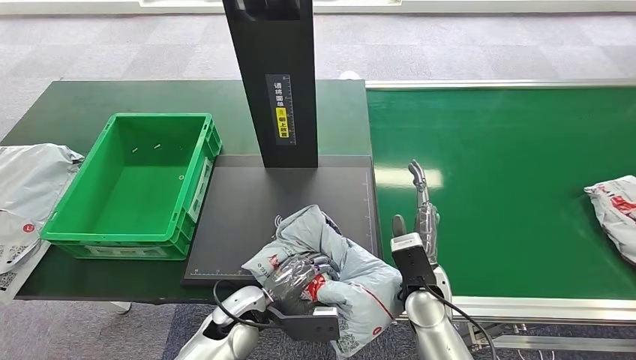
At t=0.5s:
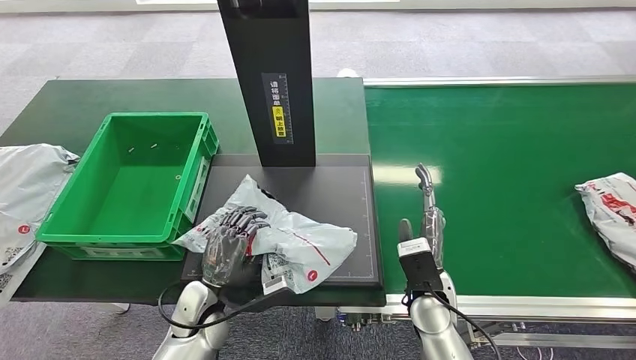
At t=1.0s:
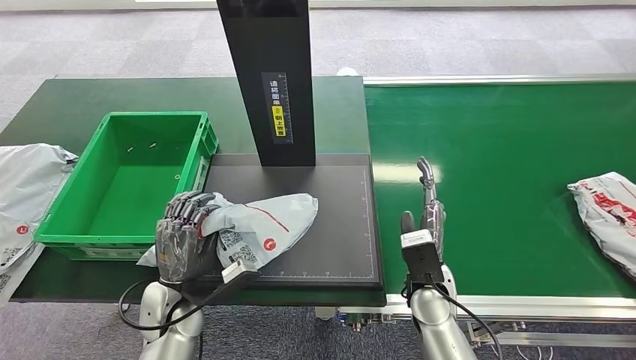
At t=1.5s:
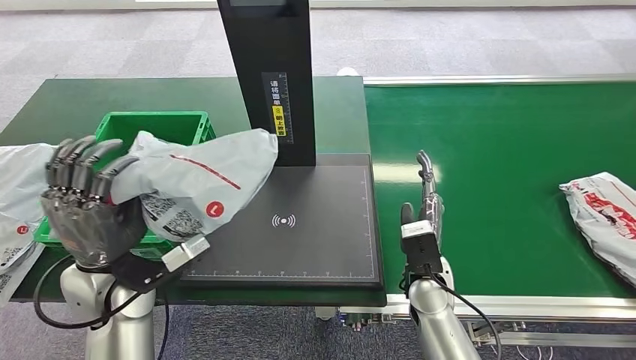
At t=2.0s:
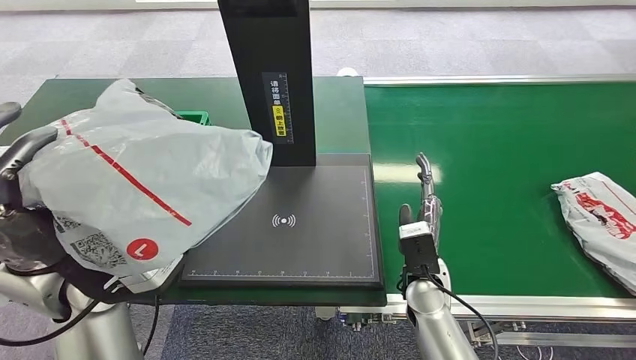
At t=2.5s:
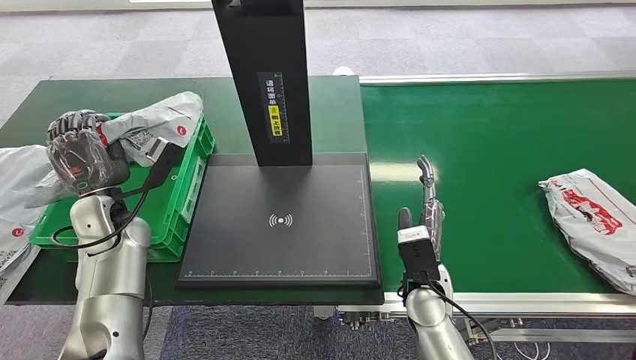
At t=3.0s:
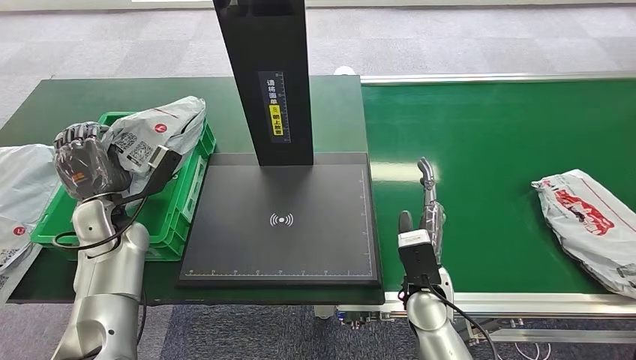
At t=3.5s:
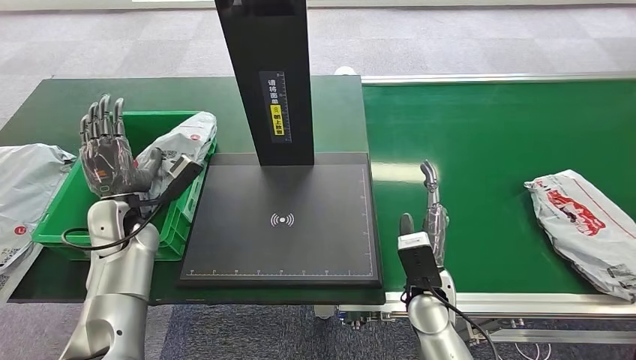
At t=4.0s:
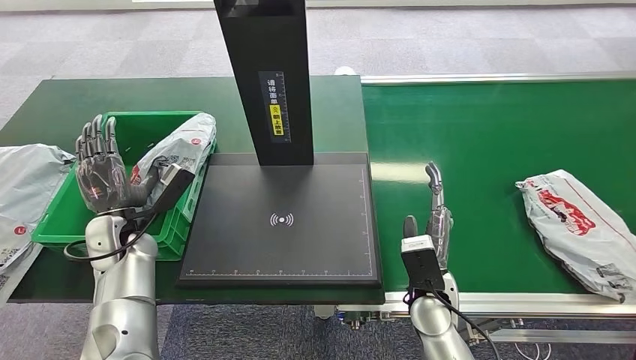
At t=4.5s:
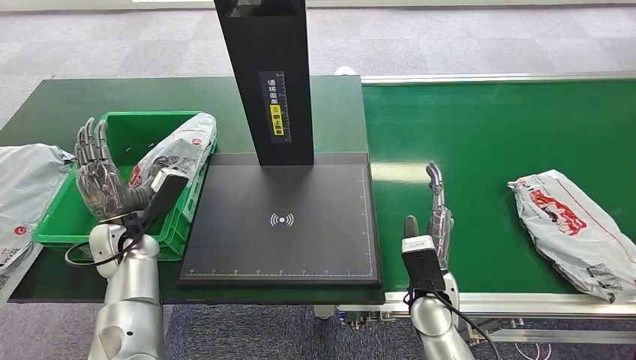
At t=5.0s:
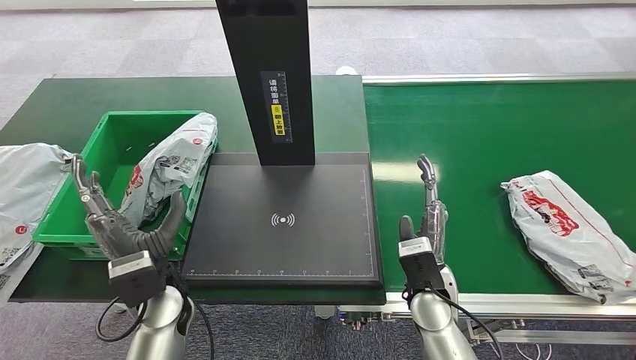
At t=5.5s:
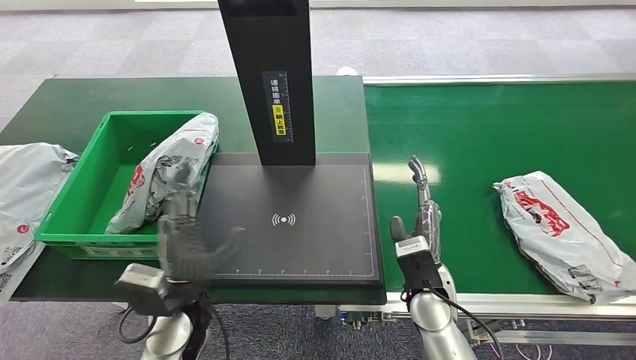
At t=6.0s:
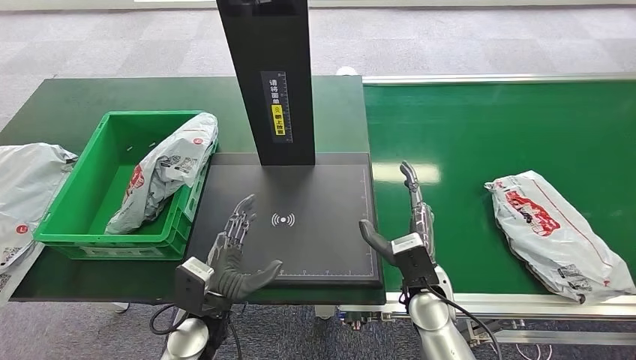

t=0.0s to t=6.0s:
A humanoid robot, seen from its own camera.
Task of the whole recording: Weigh the package on the weighing device and place it in the left basket.
Step, t=1.0s to t=6.0s: Place the package into the parcel locker.
t=4.0s to t=6.0s: The left hand travels to the right, backward and downward by roughly 25 cm.
